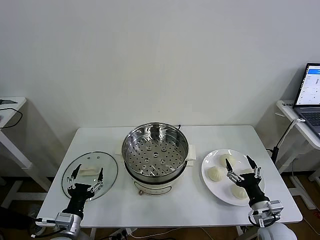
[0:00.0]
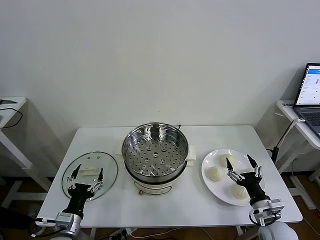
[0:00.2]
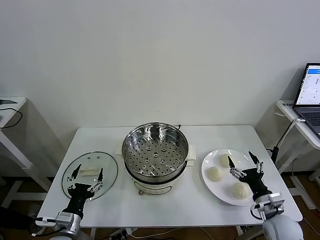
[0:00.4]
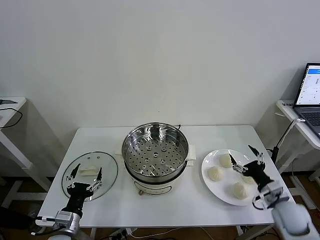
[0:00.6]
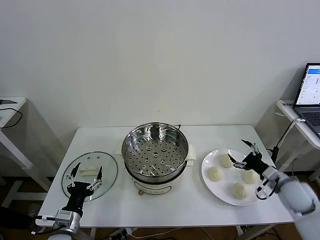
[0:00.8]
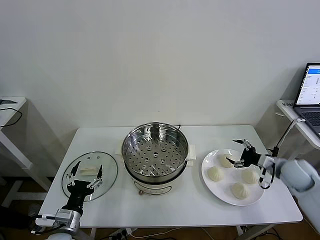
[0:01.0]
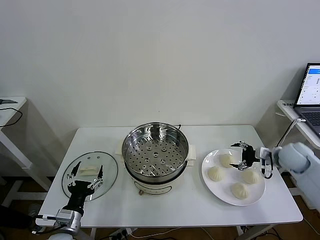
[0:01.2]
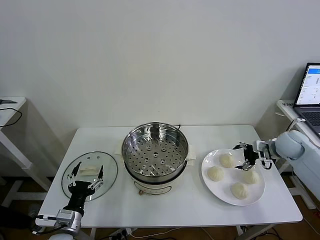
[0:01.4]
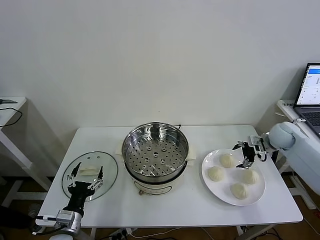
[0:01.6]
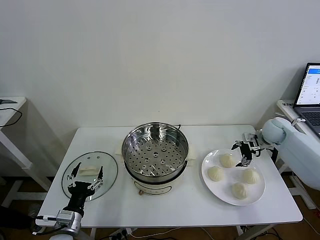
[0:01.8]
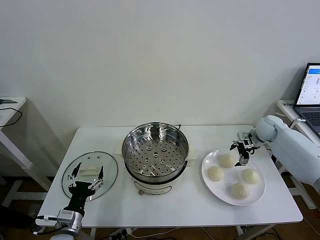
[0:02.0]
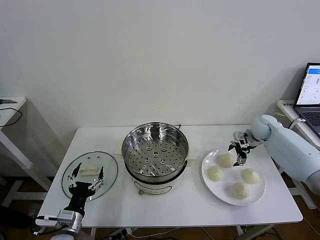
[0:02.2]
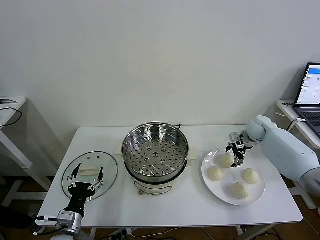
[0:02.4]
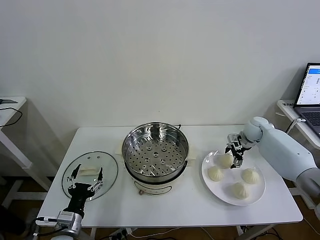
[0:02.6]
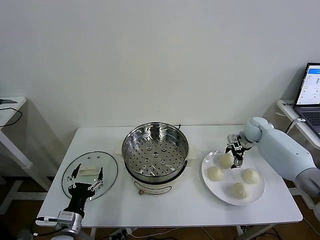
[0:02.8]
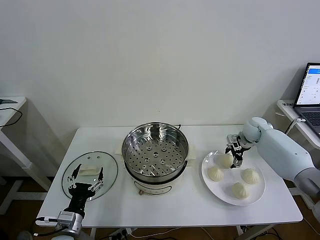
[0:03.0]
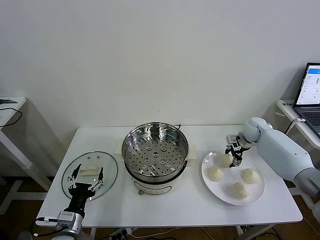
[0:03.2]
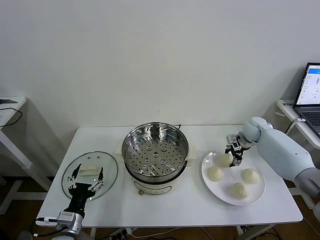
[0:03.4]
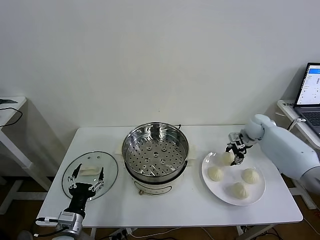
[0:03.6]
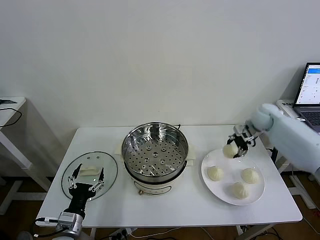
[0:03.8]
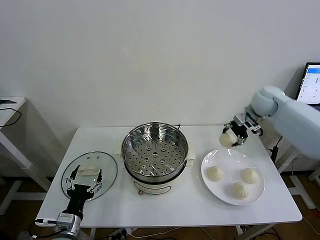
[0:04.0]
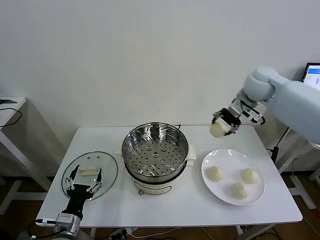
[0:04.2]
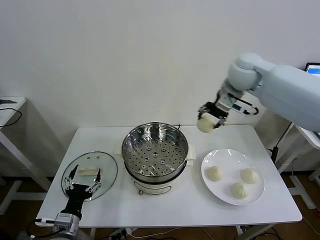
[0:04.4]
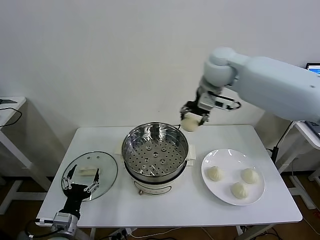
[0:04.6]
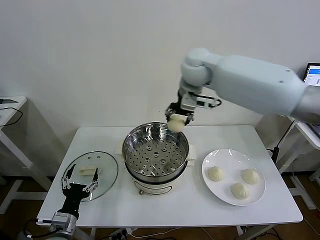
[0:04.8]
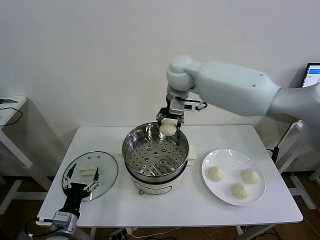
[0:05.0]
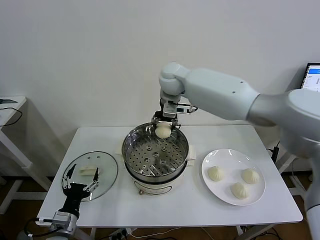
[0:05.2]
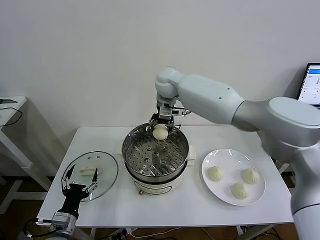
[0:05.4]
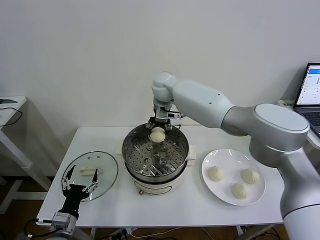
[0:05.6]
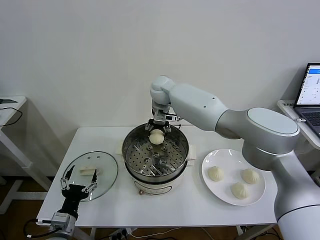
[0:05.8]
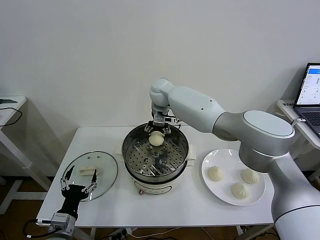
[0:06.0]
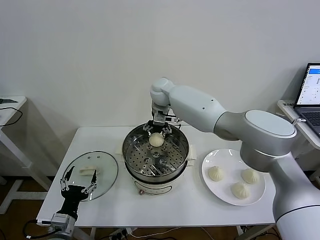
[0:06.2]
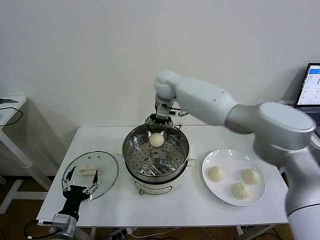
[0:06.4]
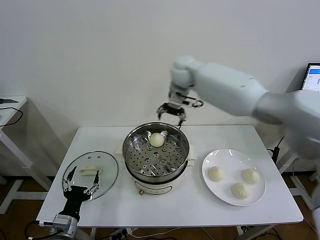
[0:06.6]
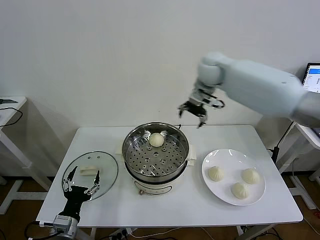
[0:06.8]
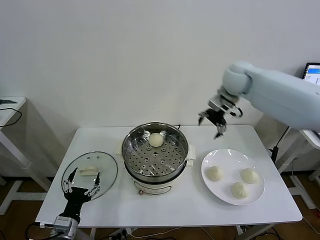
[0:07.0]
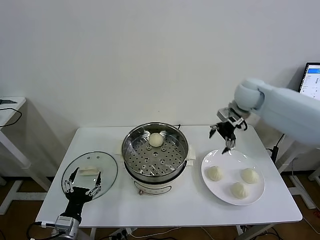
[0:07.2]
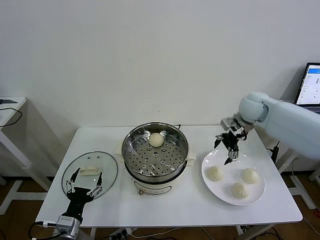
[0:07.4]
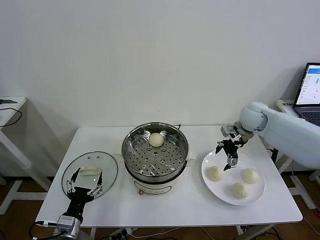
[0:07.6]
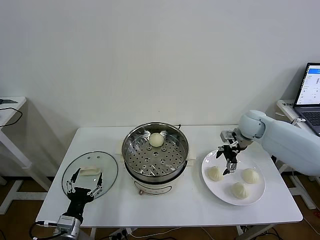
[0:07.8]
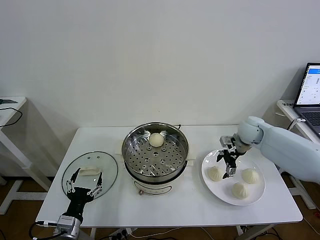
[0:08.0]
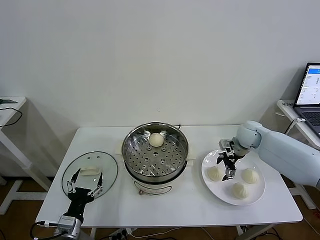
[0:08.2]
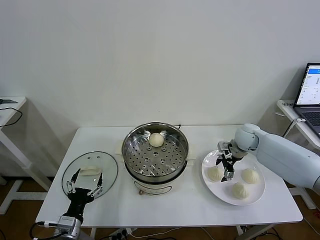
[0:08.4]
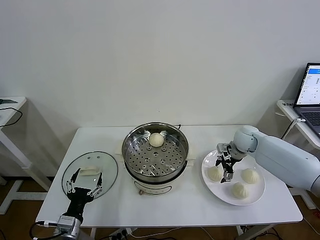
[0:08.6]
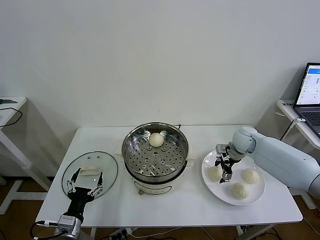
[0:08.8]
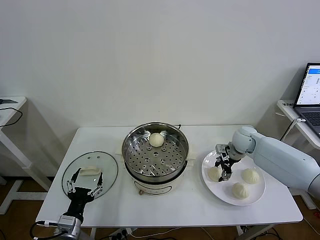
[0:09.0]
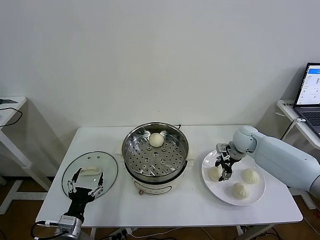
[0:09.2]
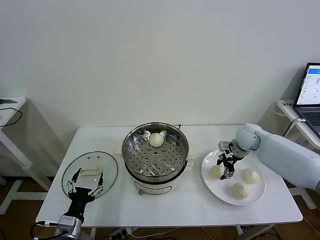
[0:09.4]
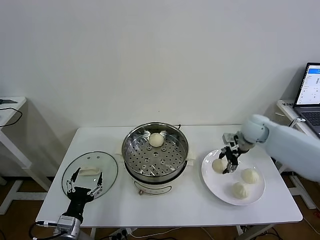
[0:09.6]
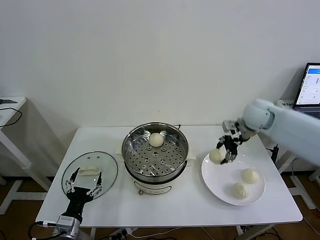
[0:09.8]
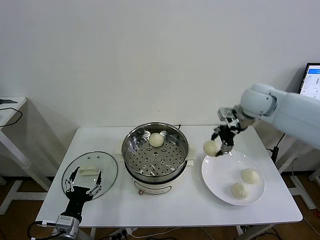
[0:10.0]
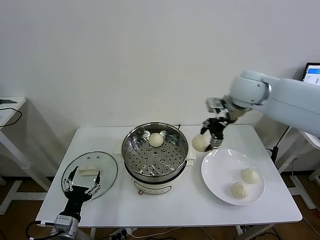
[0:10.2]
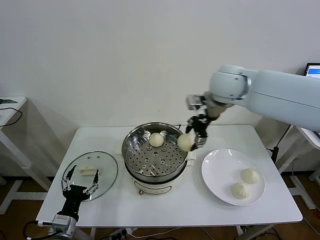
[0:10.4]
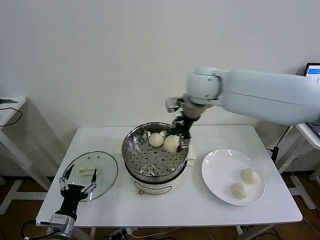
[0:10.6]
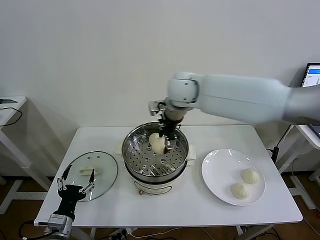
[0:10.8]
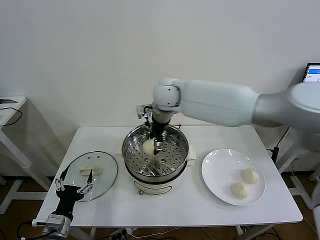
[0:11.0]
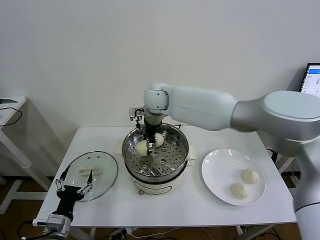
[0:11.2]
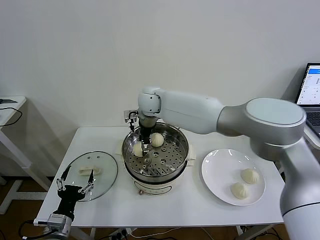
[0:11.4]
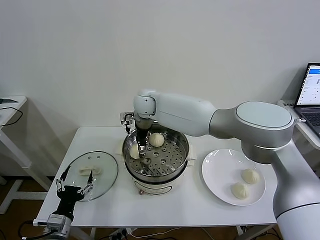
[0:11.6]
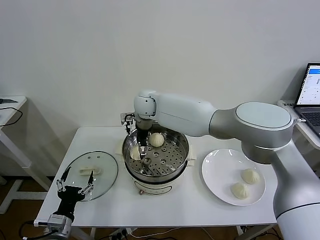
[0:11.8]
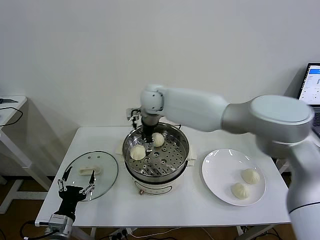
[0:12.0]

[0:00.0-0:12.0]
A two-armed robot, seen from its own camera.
Task of the whole recording: take steamed baozi put them in steamer then cover it.
Step, 0:00.0 to 0:03.0: Grasp the baozi in the plate with right gripper.
Step, 0:03.2 to 0:06.0: Place the baozi on the steamer with right gripper.
Step, 0:06.4 to 0:08.8: Grasp the baozi in the plate with right gripper.
Step, 0:09.2 to 0:11.6: Place the baozi on the steamer with right gripper.
0:01.6 to 0:03.0: The right gripper goes roughly 5 cm to the left and forward, and closes its fingers.
0:03.0 to 0:04.4: The right gripper heads upward and to the left, covering some 35 cm.
0:04.4 to 0:06.0: The right gripper travels to the left, downward and forward by approximately 25 cm, and opens its fingers.
0:06.0 to 0:07.6: The right gripper travels to the right by roughly 30 cm.
0:07.6 to 0:09.0: The right gripper travels downward by approximately 10 cm, and closes.
0:09.0 to 0:10.4: The right gripper moves upward and to the left, about 30 cm.
0:10.4 to 0:12.0: The right gripper is displaced to the left, downward and forward by some 20 cm, and opens up.

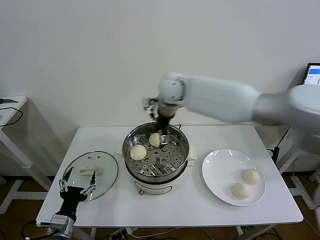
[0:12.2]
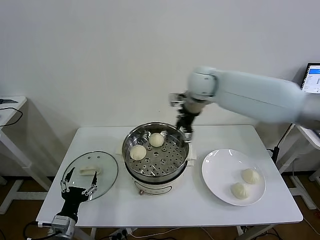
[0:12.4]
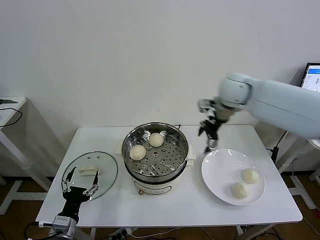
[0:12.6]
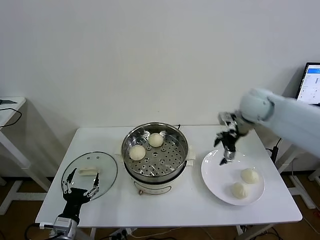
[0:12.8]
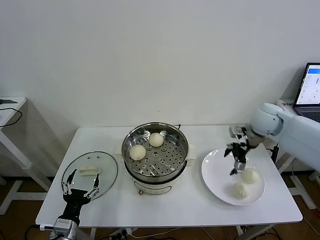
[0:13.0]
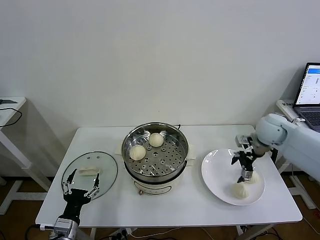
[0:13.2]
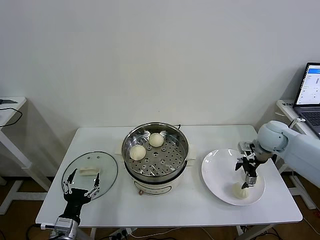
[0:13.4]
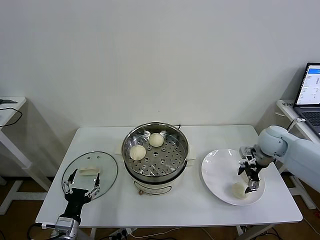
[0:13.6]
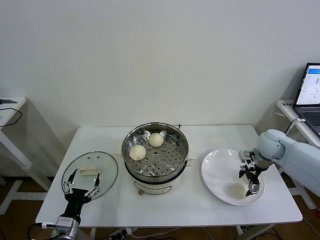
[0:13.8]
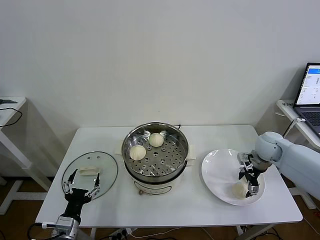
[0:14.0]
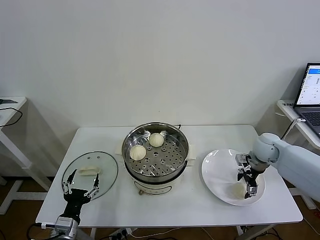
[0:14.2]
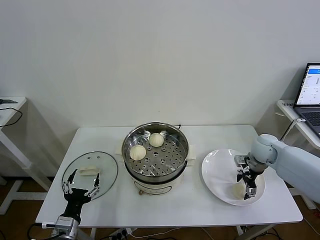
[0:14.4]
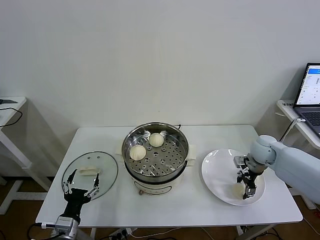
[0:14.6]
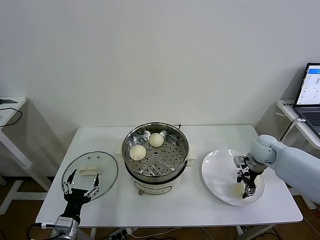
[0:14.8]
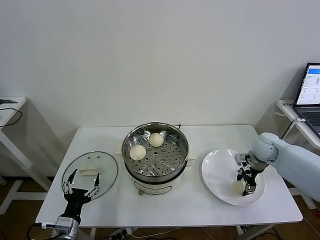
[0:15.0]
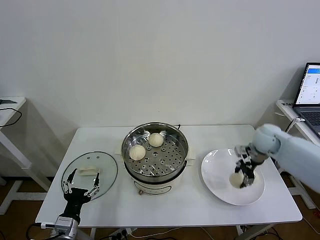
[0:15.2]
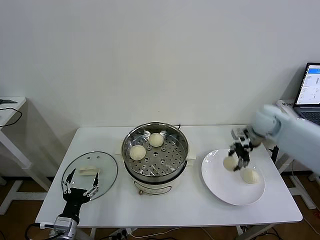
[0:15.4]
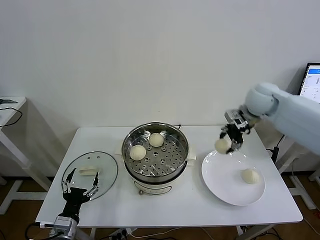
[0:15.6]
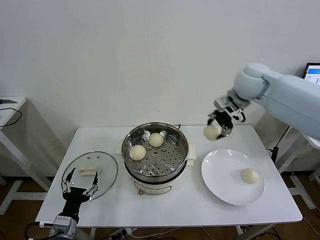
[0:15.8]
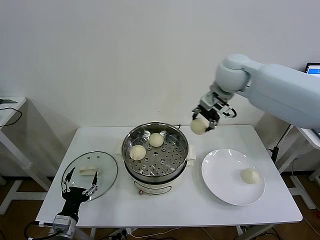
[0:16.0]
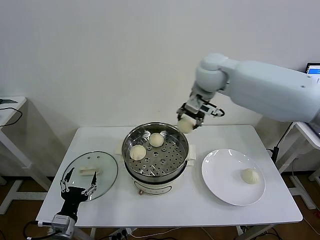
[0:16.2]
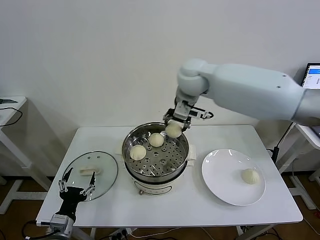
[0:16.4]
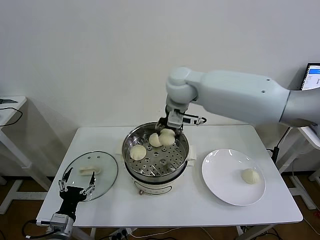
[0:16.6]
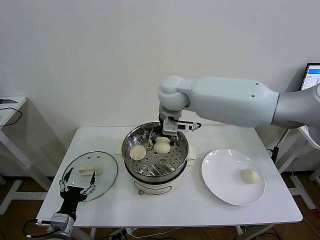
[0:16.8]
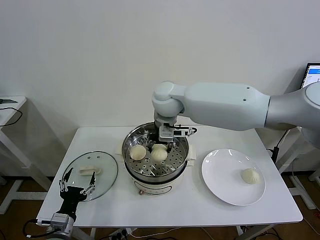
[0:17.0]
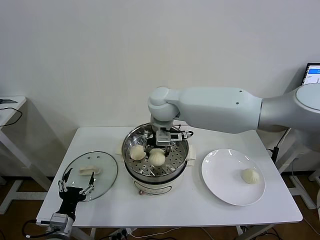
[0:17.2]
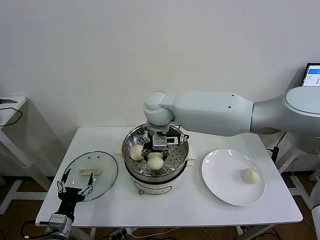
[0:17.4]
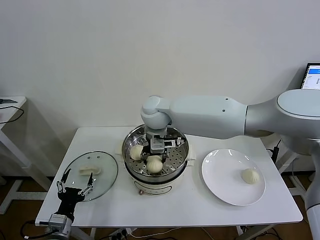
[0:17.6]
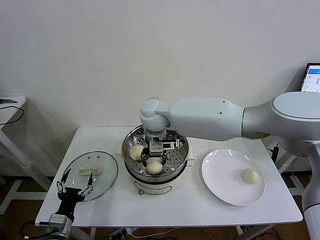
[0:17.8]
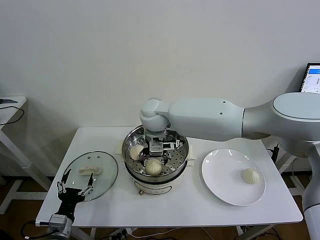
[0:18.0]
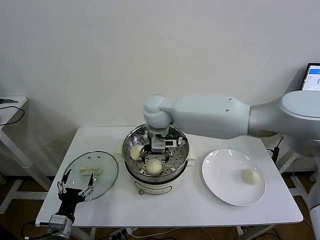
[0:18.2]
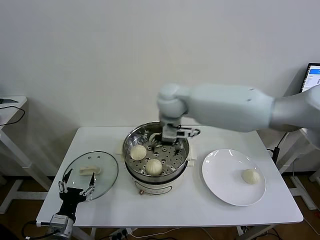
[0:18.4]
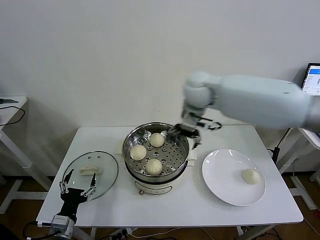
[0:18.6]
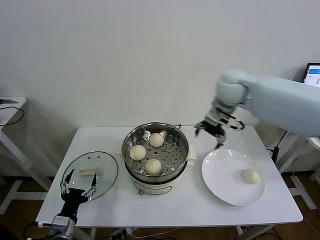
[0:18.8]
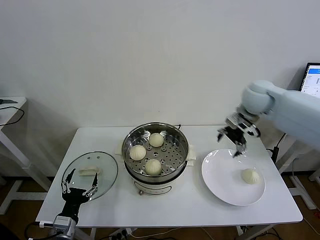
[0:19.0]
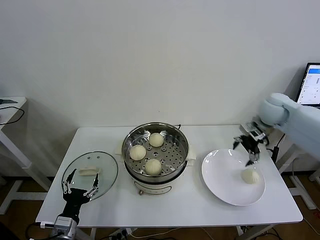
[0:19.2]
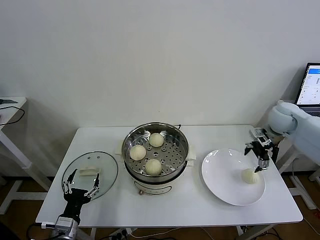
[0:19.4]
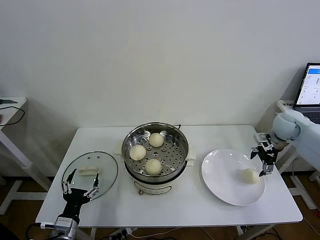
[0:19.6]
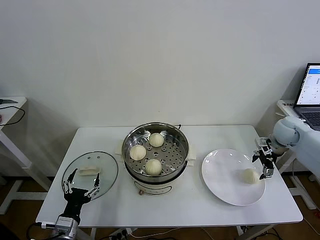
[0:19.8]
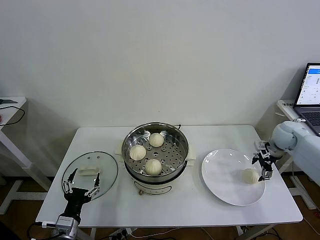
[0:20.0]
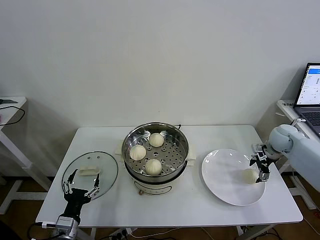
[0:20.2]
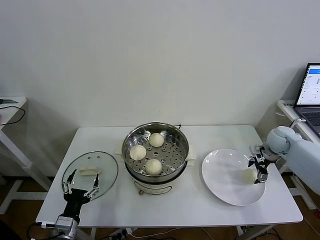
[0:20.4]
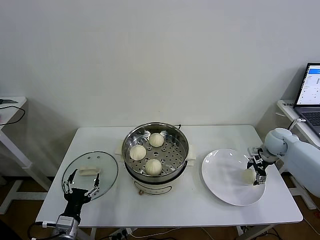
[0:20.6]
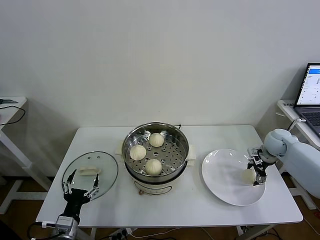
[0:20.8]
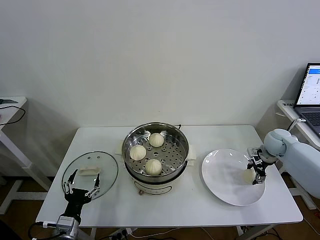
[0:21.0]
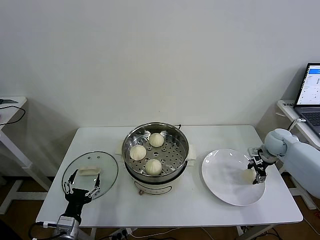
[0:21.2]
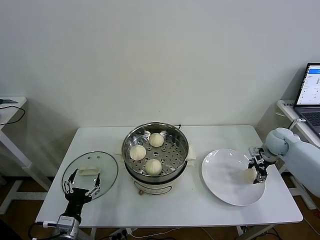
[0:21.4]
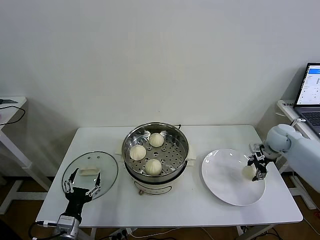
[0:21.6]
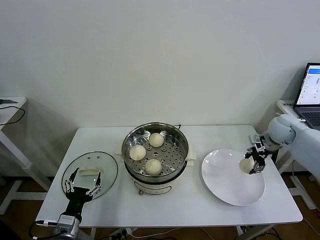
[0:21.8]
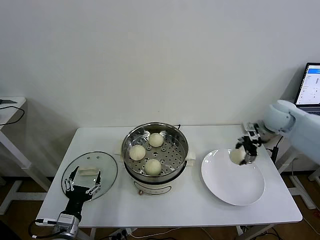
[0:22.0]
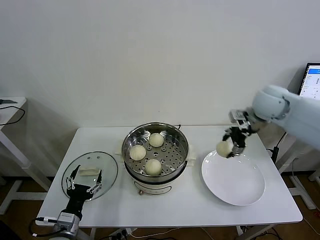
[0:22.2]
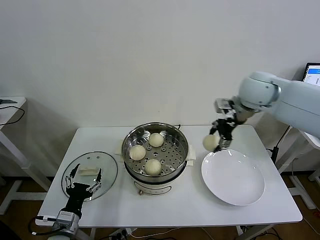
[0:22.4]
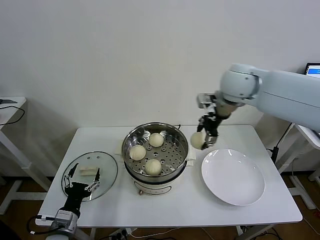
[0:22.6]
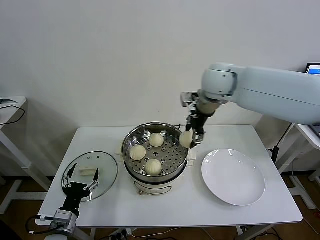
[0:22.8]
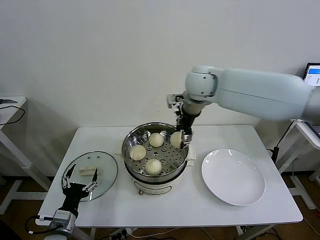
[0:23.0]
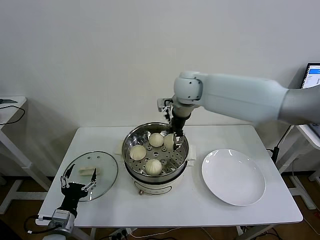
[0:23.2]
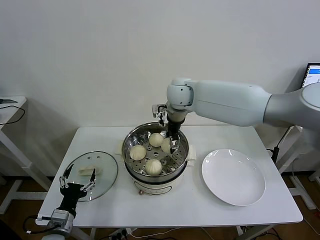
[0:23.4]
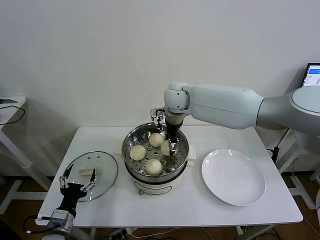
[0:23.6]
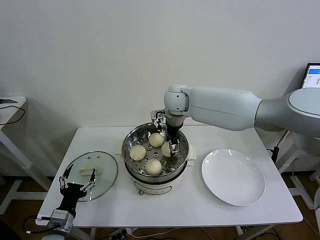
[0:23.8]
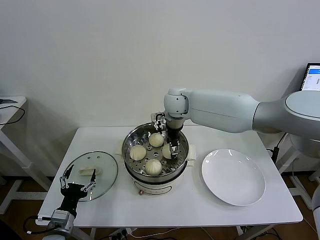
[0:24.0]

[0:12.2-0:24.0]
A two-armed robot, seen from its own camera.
Task of the whole recording: take steamed baozi put them in steamer then cover it.
Step, 0:12.2 to 0:14.6: Grasp the baozi in the plate with right gripper.
Step, 0:14.8 to 0:18.0: Place the baozi on the steamer with right gripper.
Step, 0:18.2 to 0:21.0: Grasp the baozi in the plate with right gripper.
0:12.2 to 0:13.6: The right gripper moves to the right and downward, roughly 35 cm.
0:13.6 to 0:15.2: The right gripper closes.
0:15.2 to 0:16.6: The right gripper travels to the left and upward by about 35 cm.
0:16.6 to 0:18.2: The right gripper is displaced downward and to the left by approximately 10 cm, and opens up.
0:18.2 to 0:19.6: The right gripper moves to the right, about 40 cm.
0:19.6 to 0:21.0: The right gripper goes some 10 cm downward, and closes its fingers.
0:21.0 to 0:22.6: The right gripper moves upward and to the left, some 35 cm.
0:22.6 to 0:24.0: The right gripper is displaced to the left and downward by roughly 20 cm.
